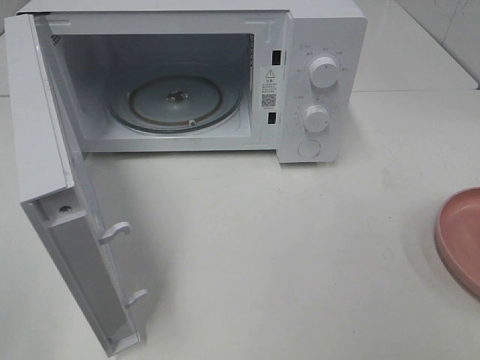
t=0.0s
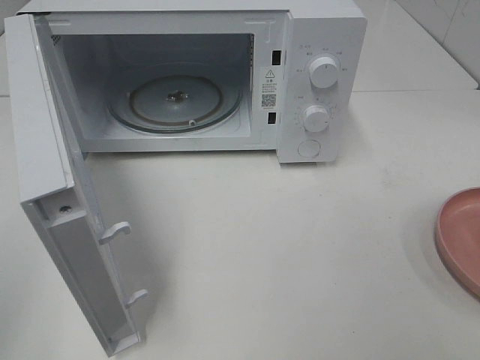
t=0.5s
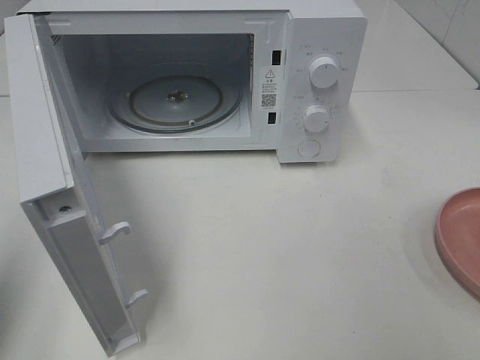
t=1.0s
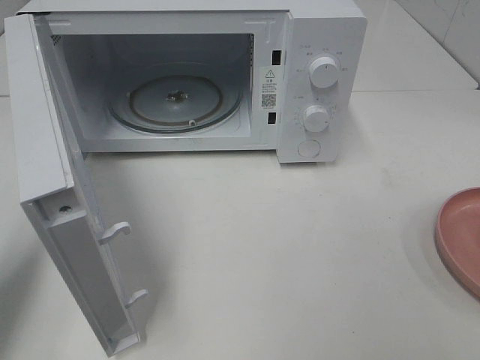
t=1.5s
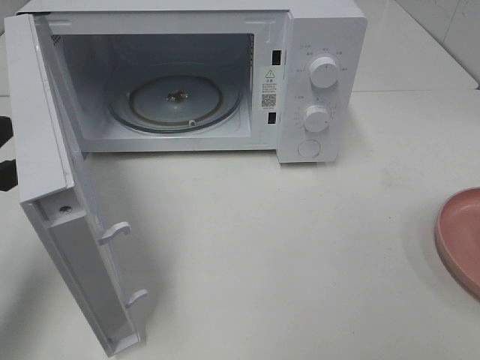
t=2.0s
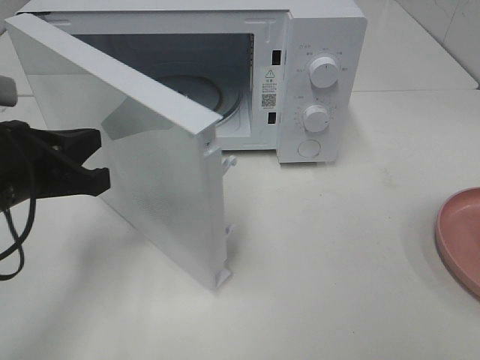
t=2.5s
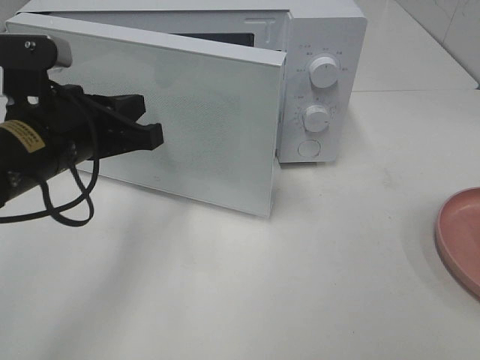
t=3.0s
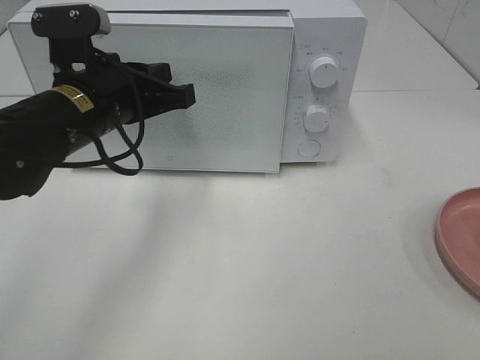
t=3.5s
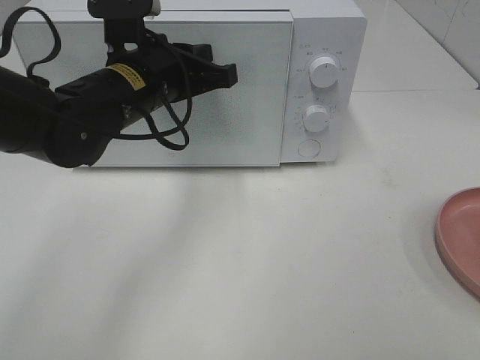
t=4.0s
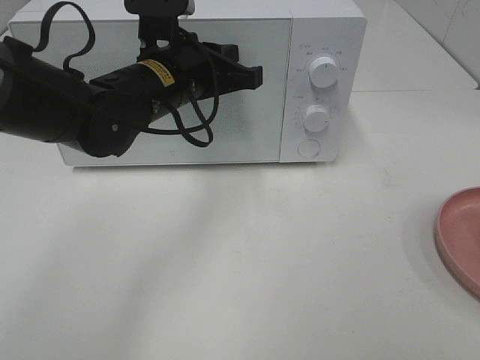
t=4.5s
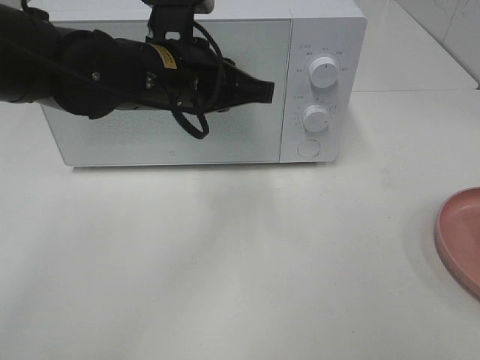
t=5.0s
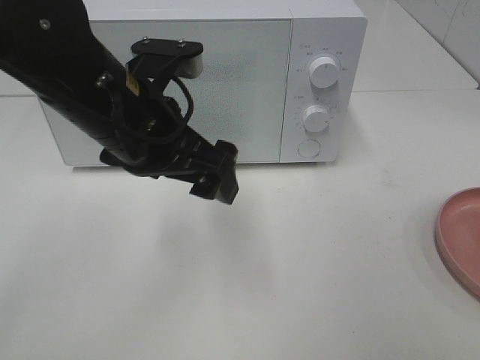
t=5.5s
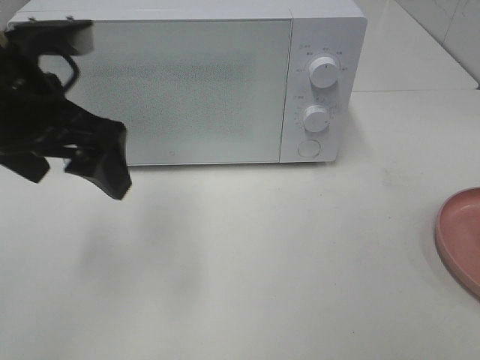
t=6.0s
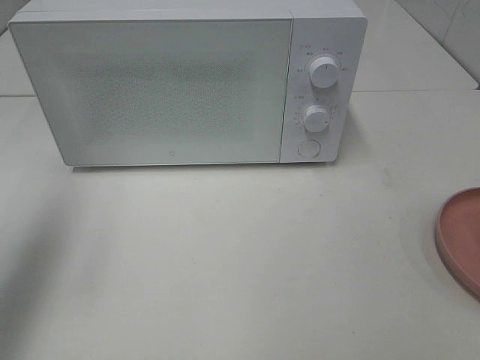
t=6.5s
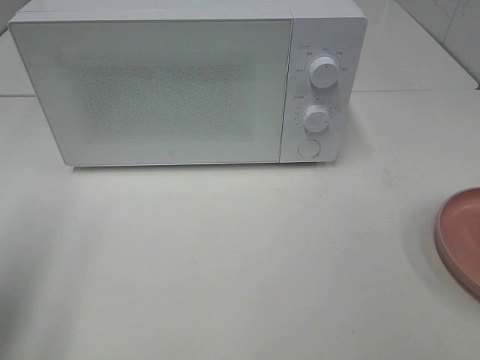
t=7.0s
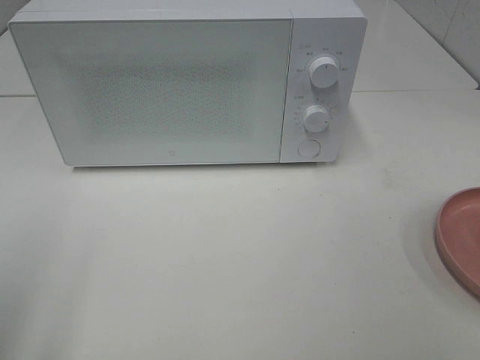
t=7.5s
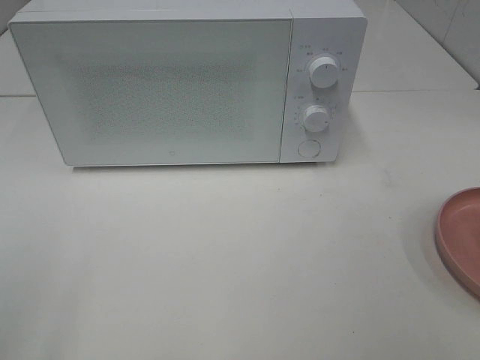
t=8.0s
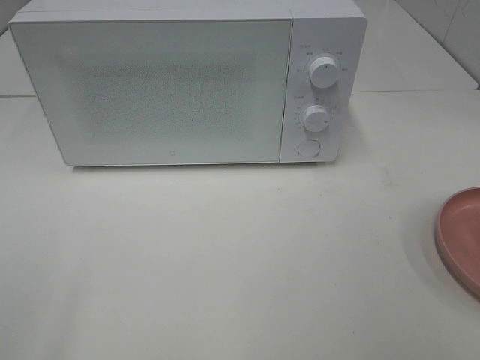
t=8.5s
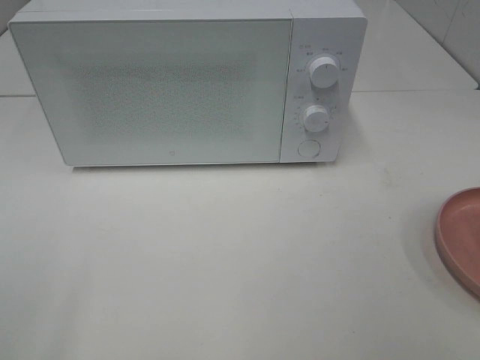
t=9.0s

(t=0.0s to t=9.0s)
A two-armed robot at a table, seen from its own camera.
Task of the whole recording: Heat the burger.
Step, t=0.0s - t=4.5s: Left hand: close the microwave door.
t=0.0s - t=2.0s: The left gripper is displaced forward and downward by some 20 cm, and closes its fingers.
t=2.0s - t=4.5s: The left gripper shifts about 25 cm to the right and forward.
t=4.5s - t=7.0s: The left gripper is displaced to the left and backward by approximately 30 cm, and opens its fingers.
t=7.0s - t=9.0s: The left gripper goes roughly 15 cm backward.

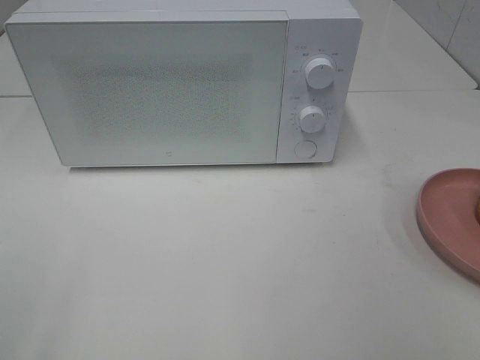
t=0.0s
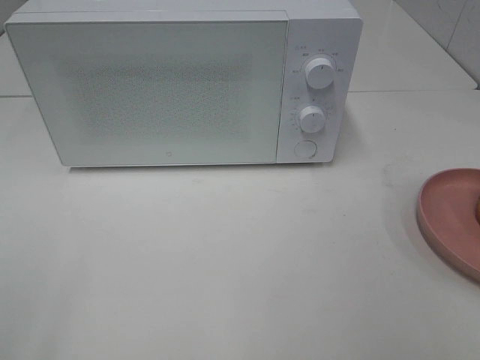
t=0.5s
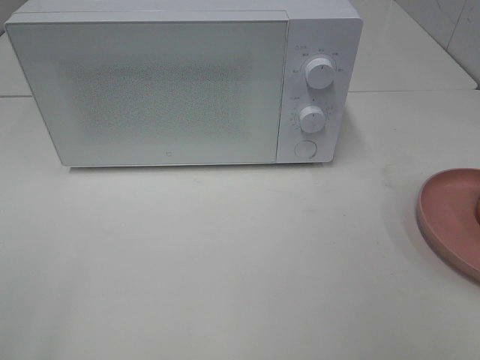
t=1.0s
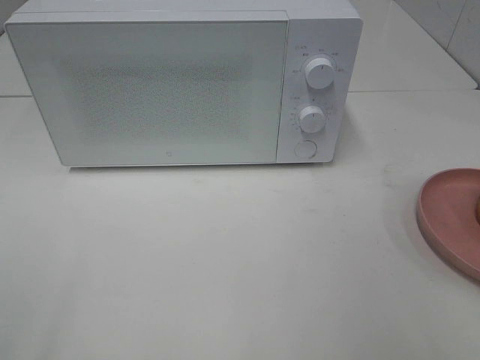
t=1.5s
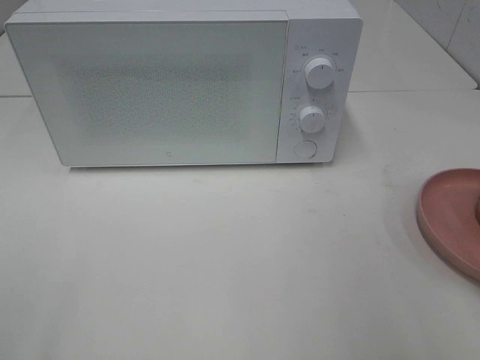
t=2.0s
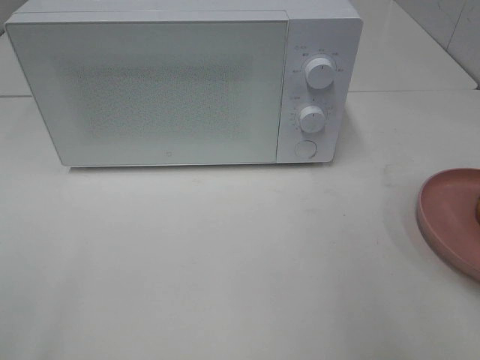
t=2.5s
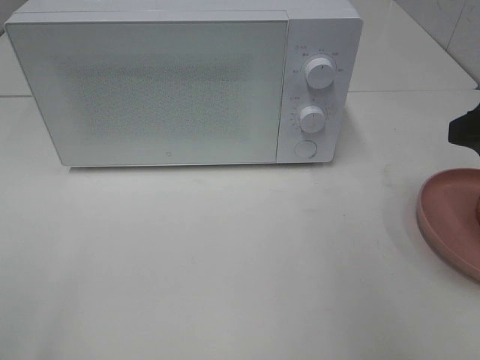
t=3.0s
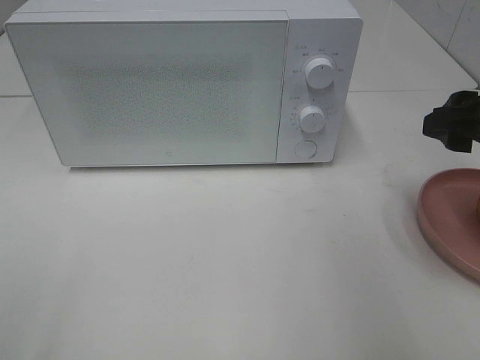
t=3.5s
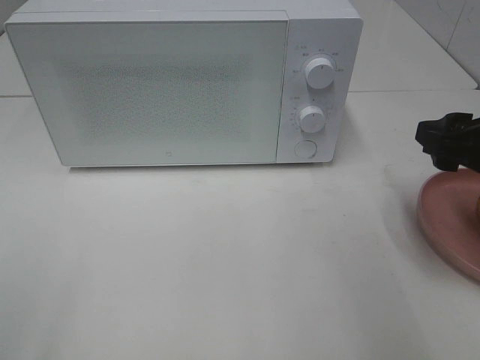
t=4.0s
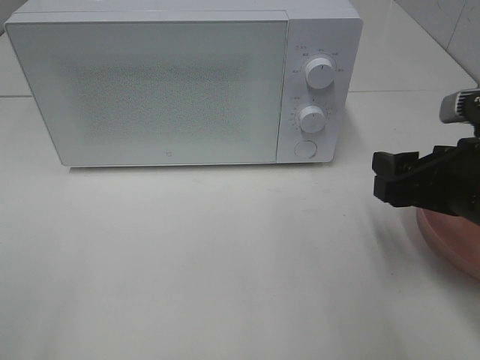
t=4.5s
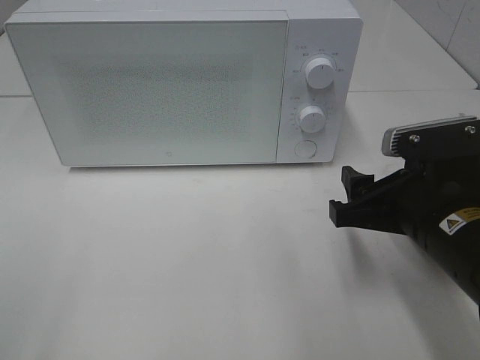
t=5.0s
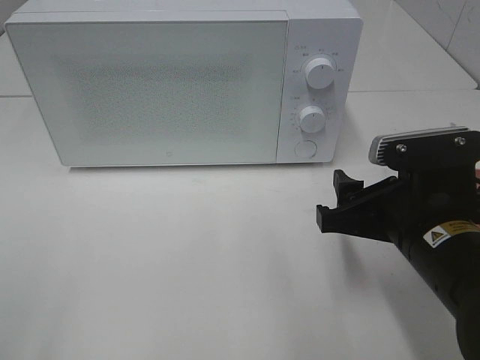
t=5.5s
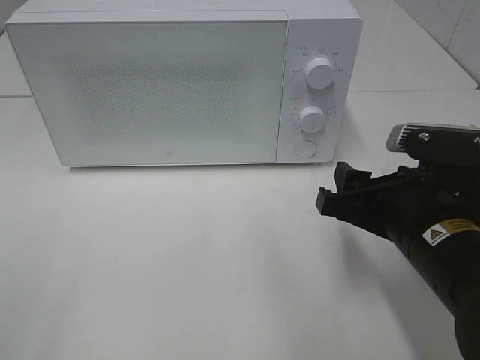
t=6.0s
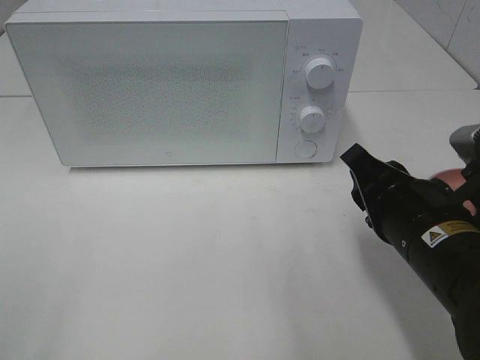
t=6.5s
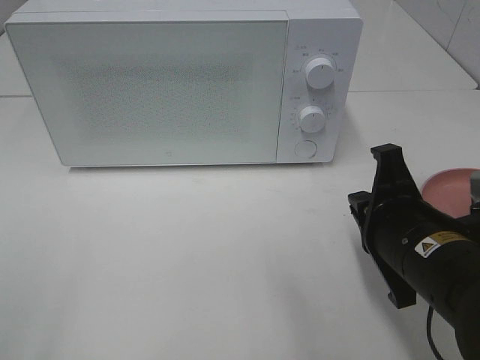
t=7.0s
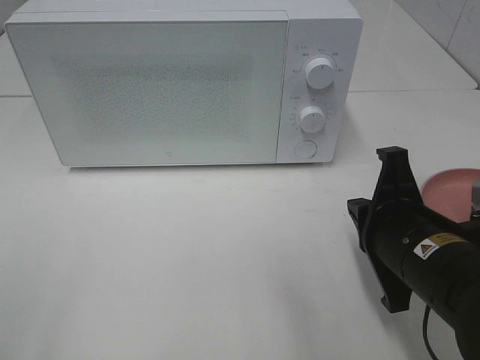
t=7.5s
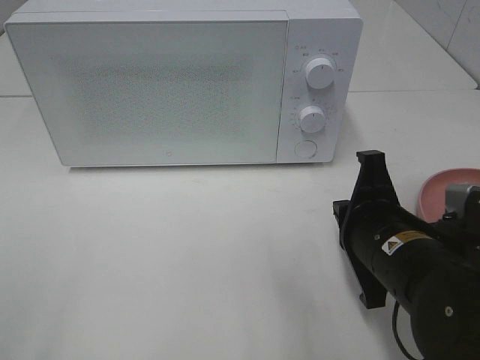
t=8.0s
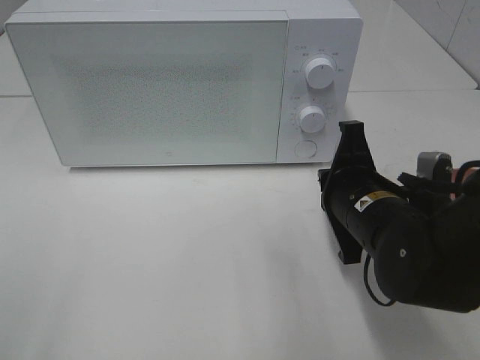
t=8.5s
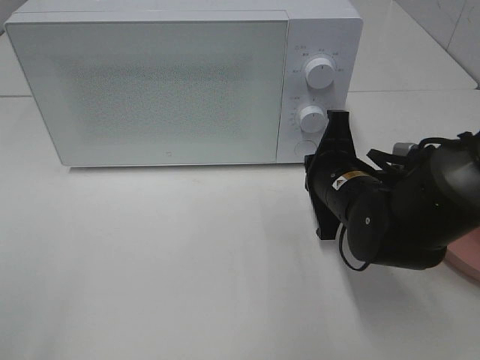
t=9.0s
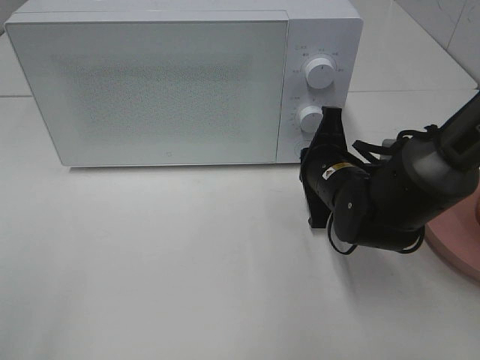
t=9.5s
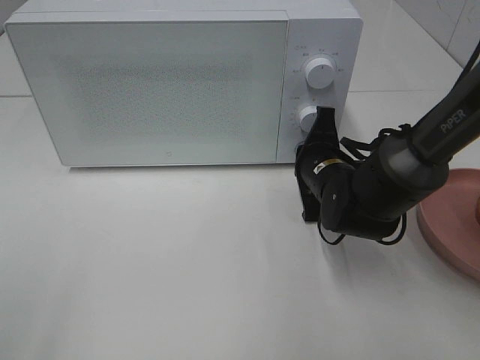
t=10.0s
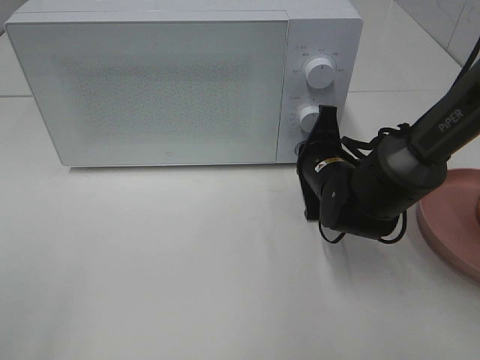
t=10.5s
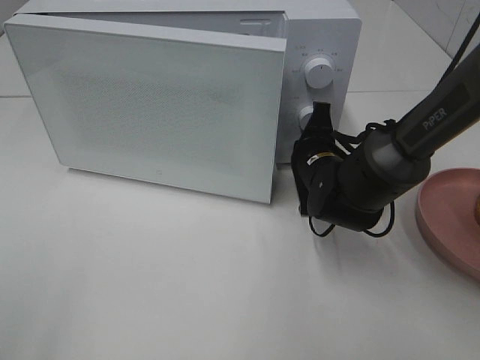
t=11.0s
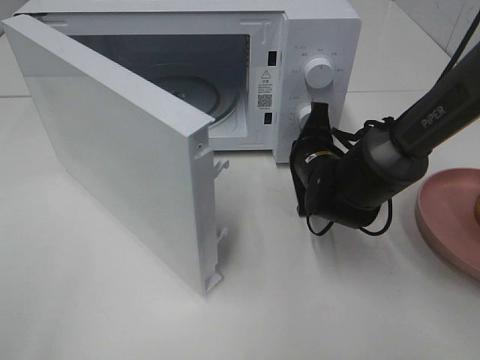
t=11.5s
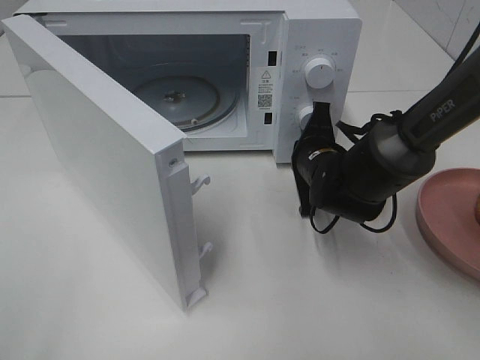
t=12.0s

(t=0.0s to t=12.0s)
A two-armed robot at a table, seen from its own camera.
Task of the whole recording: Heat the burger.
t=2.0s - t=4.0s: The right gripper heads forward and downward, covering approximately 15 cm.
t=4.0s - t=6.0s: The right gripper goes about 10 cm to the left and downward.
t=6.0s - t=8.0s: The right gripper closes its fingers.
t=8.0s - t=10.0s: The right gripper goes approximately 15 cm forward.

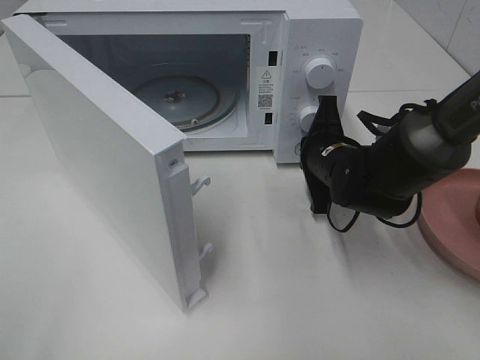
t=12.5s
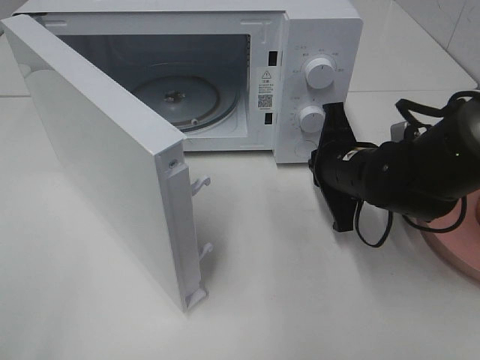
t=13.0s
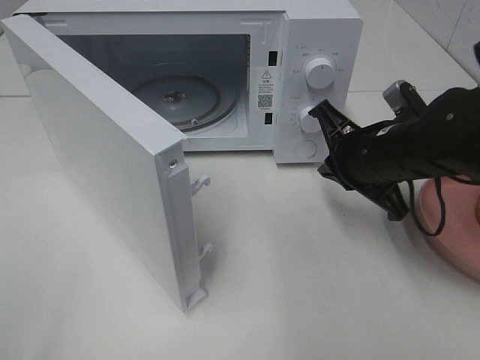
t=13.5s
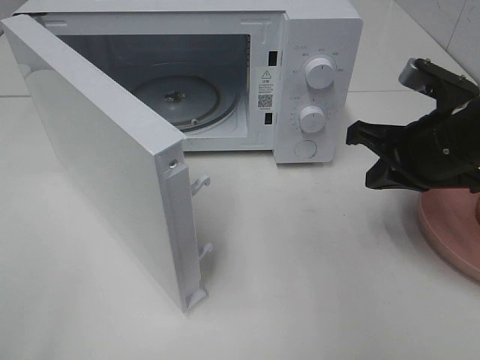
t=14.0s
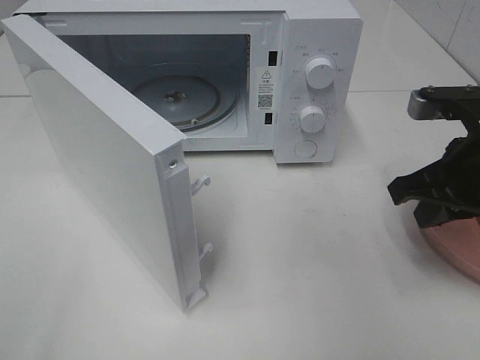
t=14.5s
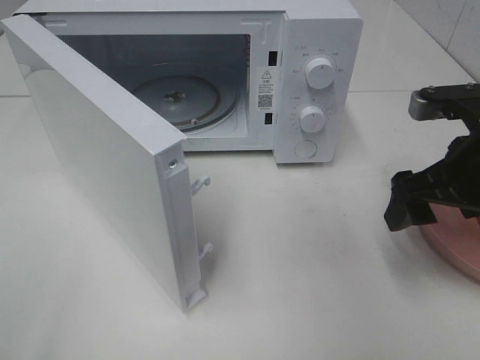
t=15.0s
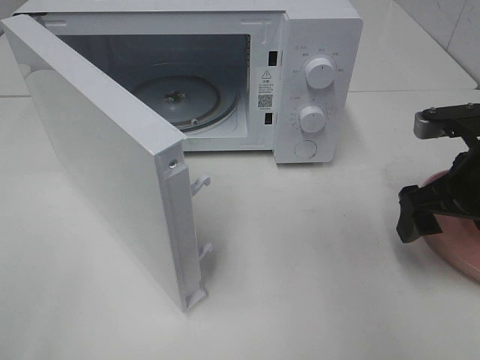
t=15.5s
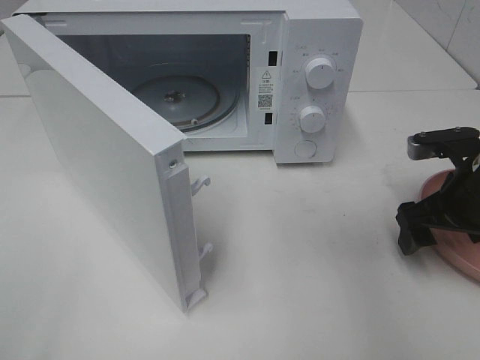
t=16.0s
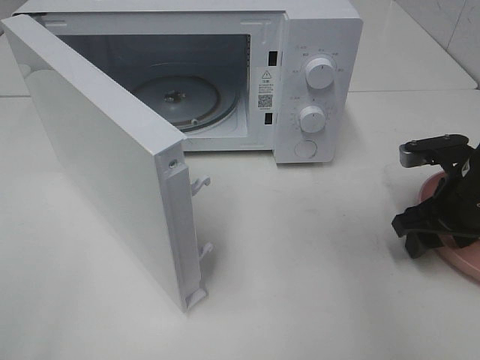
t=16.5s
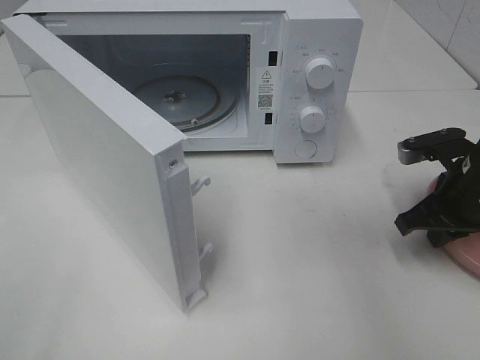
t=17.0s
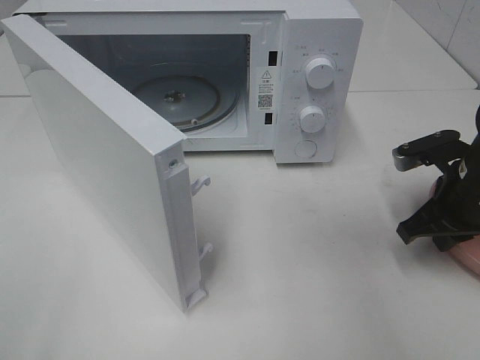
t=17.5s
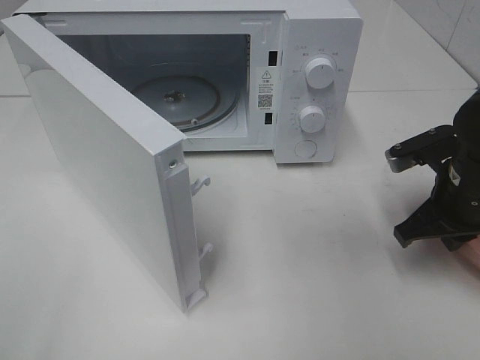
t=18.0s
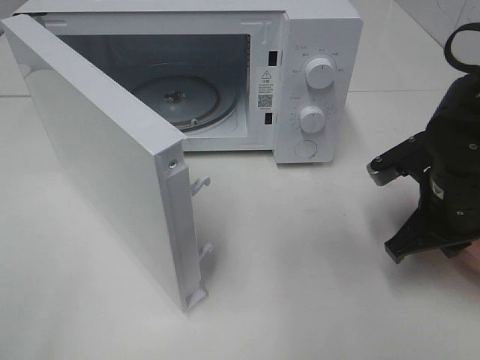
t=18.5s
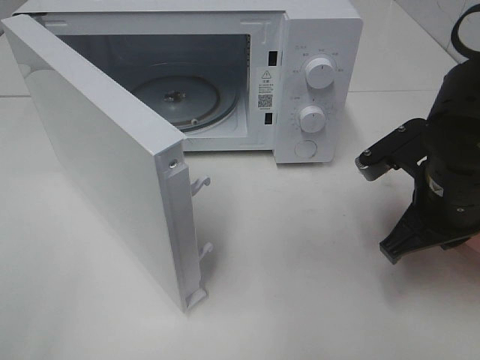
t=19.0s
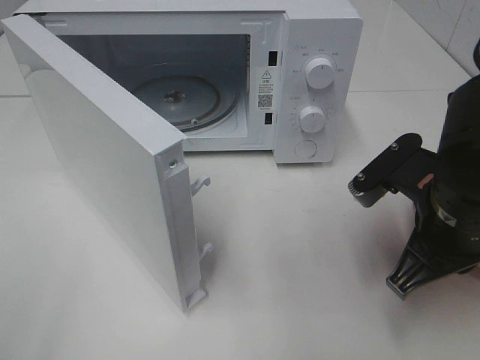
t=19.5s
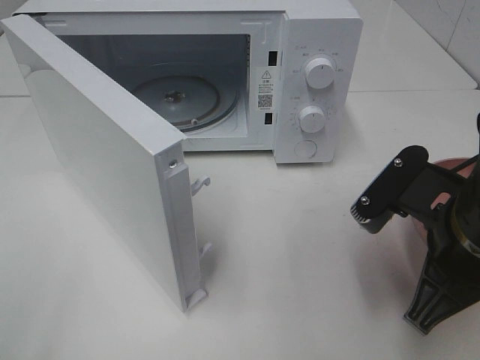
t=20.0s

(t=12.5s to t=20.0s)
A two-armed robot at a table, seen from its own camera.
Task of the whole recording: Heat the burger.
Step, t=13.0s - t=16.5s: Right hand: grab the plate with the hamburger.
t=12.5s - t=14.5s: The right gripper travels upward, backward and to the right by approximately 20 cm.
t=14.5s - t=16.5s: The right gripper moves downward, some 10 cm, and opens up.
t=16.5s - t=18.0s: The right gripper closes its fingers.
t=18.0s - t=20.0s: The right gripper goes some 15 cm backward and to the left.
